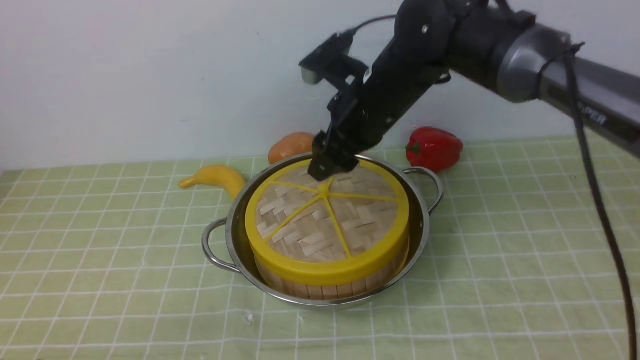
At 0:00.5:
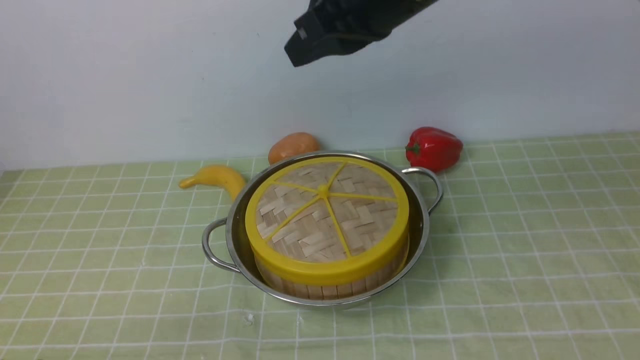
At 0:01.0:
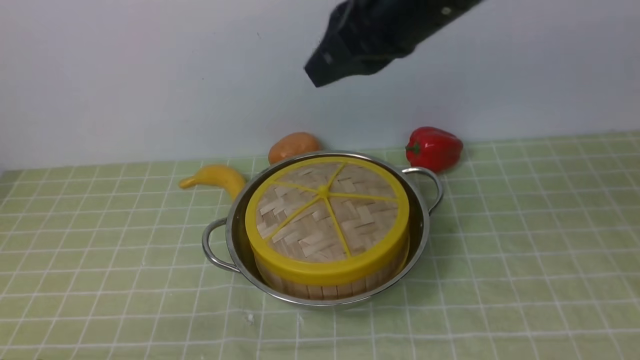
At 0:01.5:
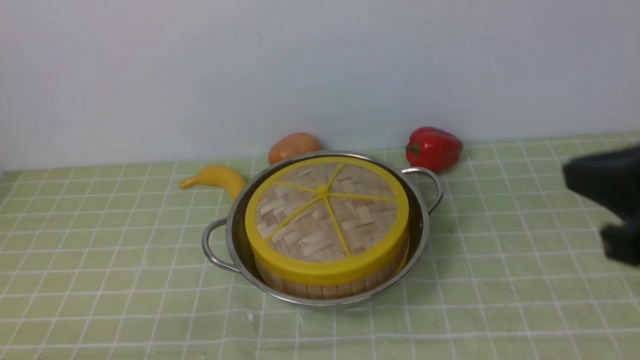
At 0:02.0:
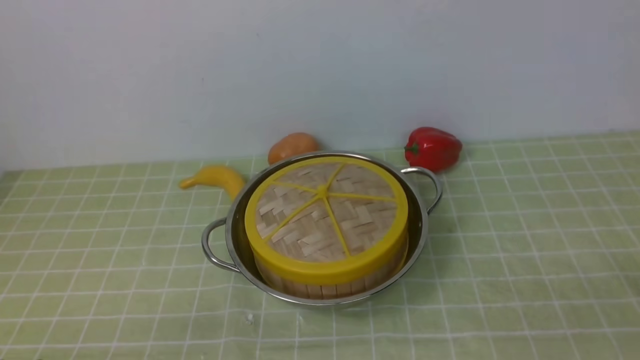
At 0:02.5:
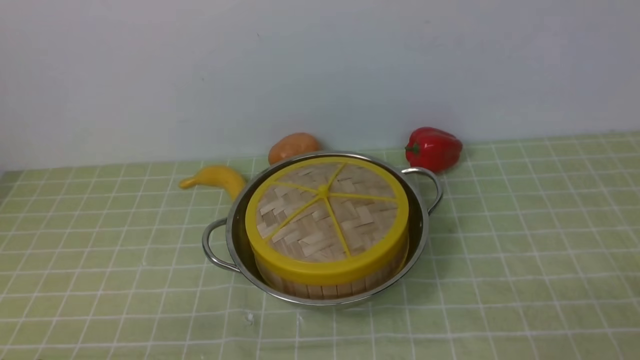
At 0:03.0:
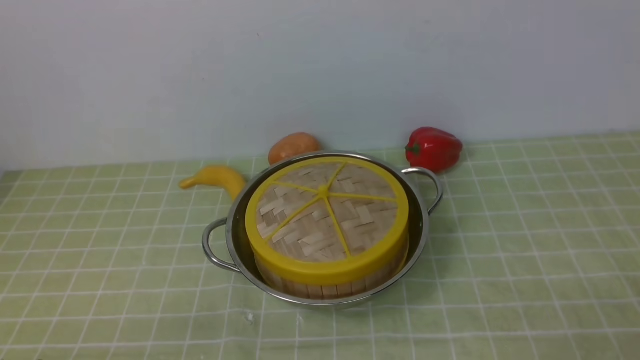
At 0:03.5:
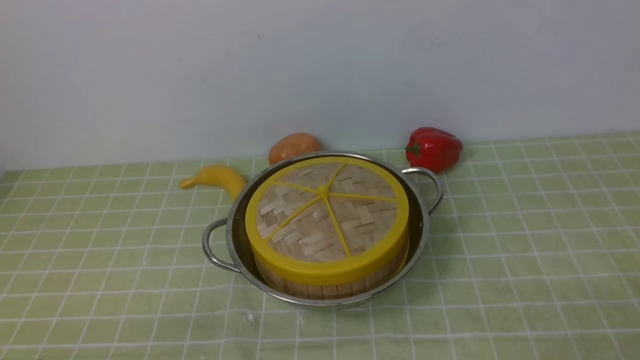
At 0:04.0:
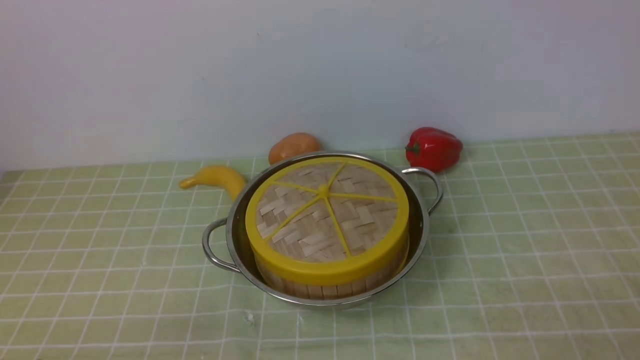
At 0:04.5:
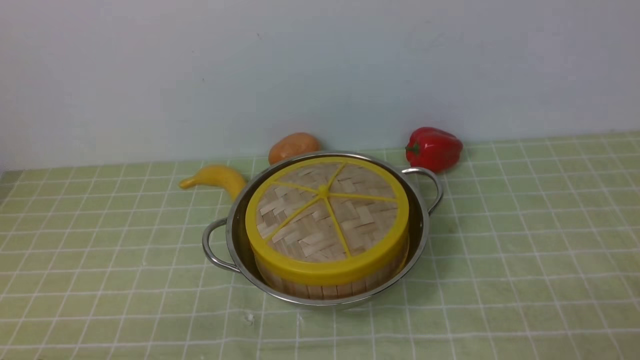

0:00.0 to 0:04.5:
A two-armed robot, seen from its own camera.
Task of the whole recording: place the steamer in the pot on the green tablecloth, and put the lid on the steamer.
0:00.0 to 0:02.0: The right gripper is displaced backward and to the right by about 40 cm, and closes.
